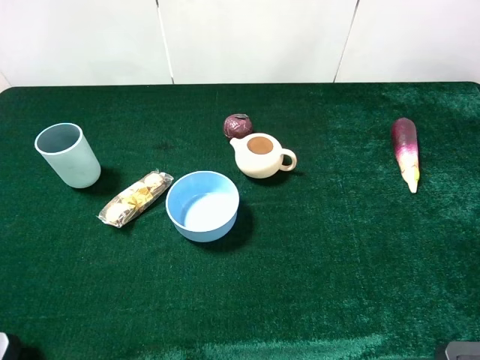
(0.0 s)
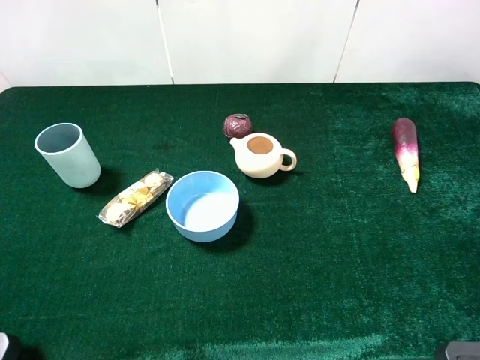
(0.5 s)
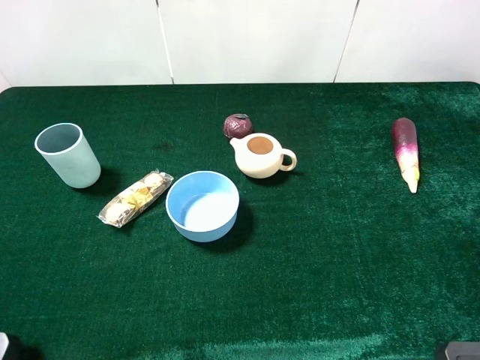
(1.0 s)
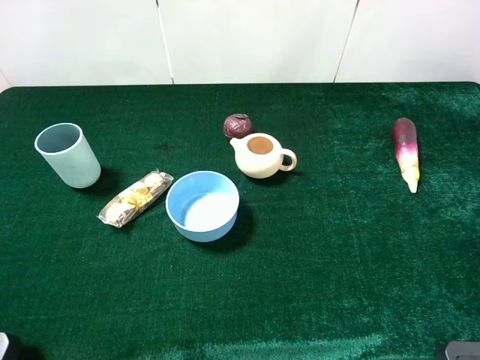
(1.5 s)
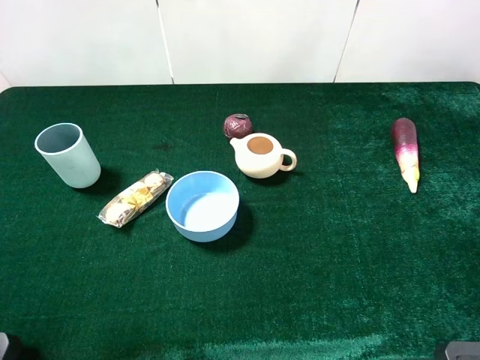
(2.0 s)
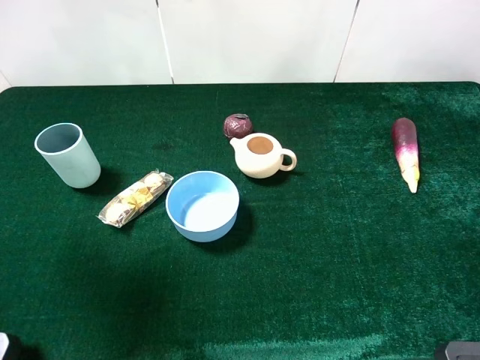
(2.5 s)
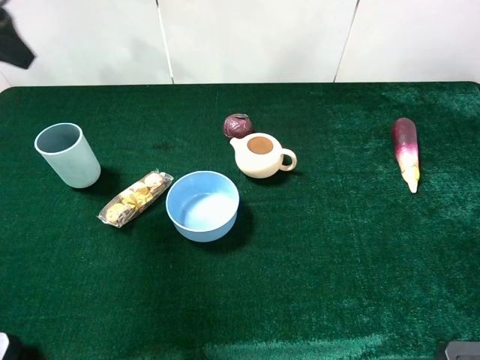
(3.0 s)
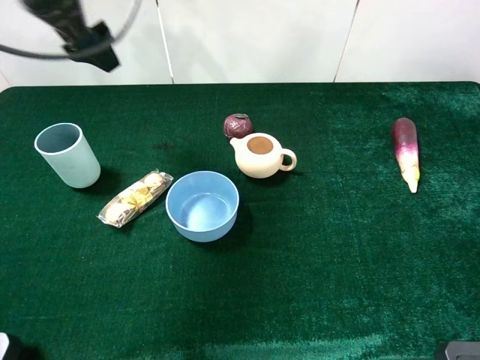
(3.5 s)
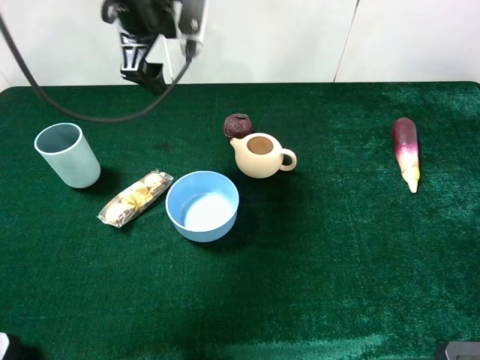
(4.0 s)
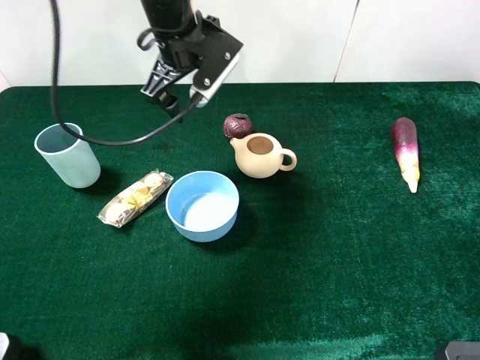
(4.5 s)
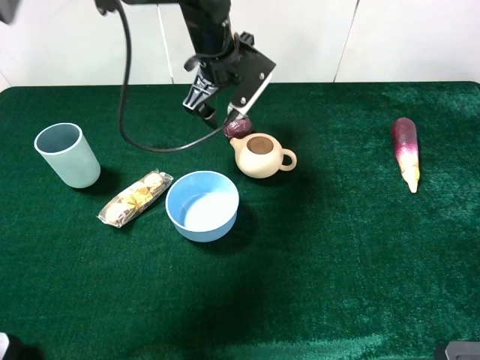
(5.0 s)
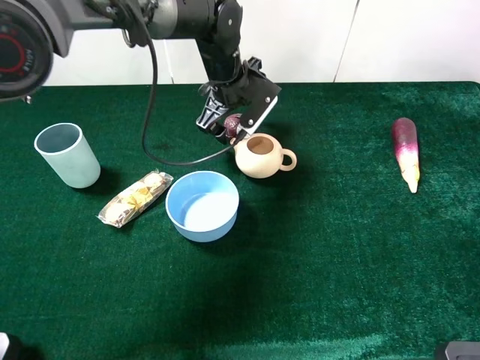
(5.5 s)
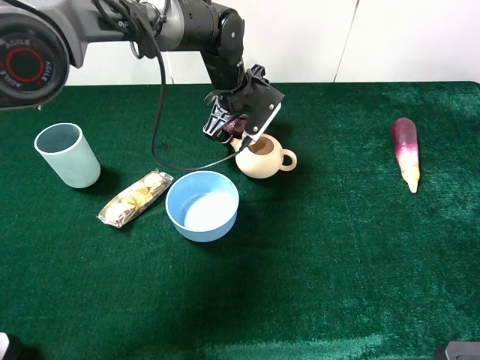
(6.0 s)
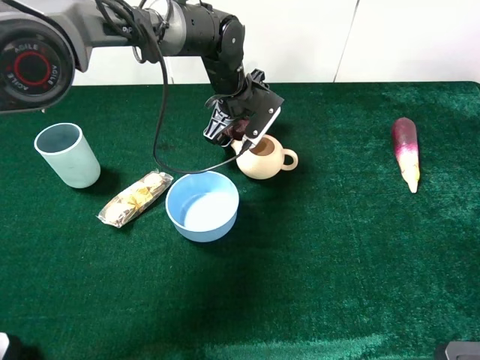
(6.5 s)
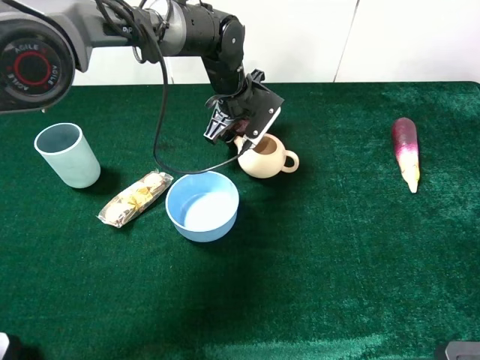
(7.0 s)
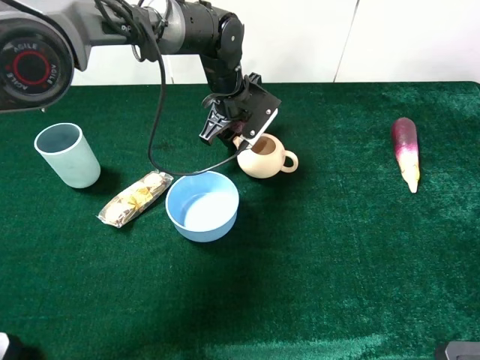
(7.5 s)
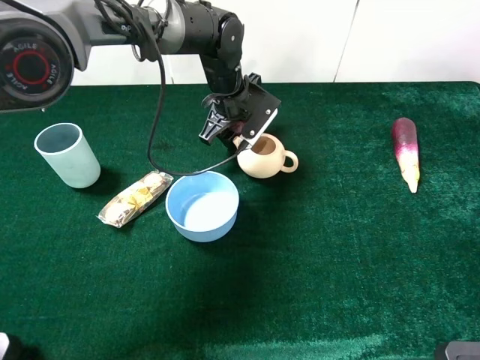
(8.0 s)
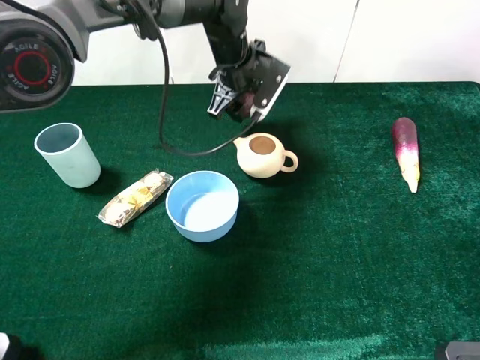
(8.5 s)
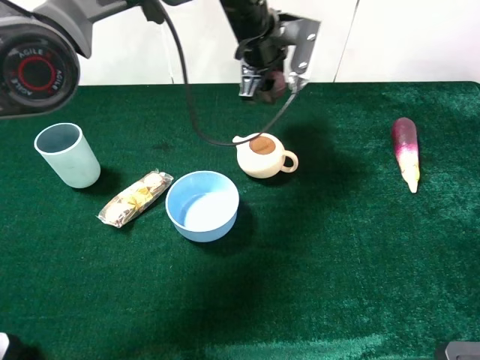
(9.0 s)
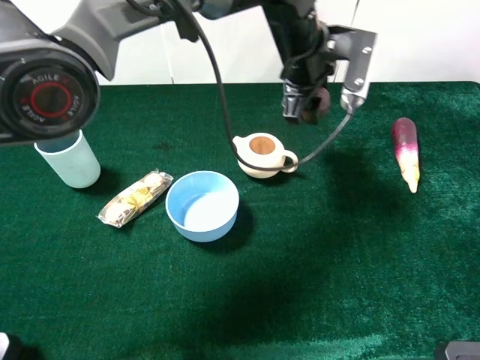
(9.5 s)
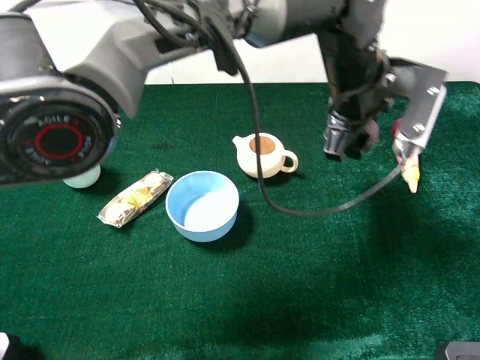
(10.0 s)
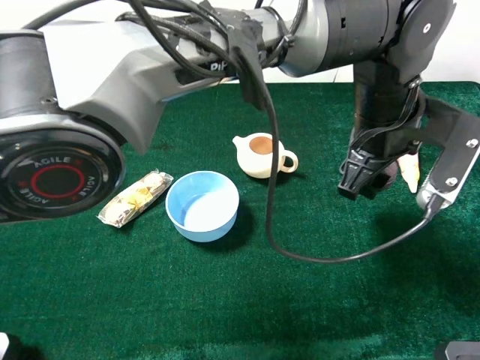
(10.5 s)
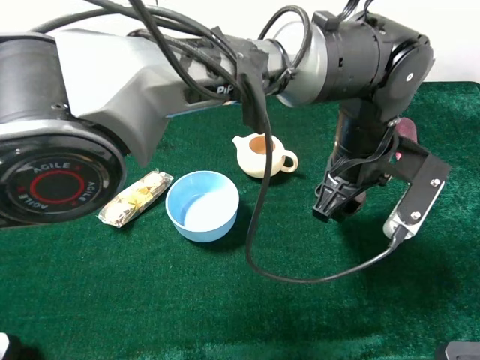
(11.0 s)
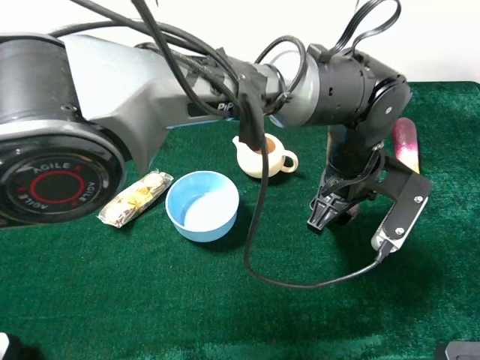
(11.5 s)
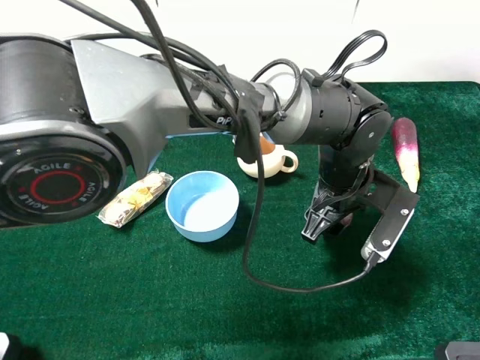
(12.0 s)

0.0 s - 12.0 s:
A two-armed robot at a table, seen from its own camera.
Task of the whole recording: the gripper move the object.
Step, 0.0 s - 7.5 s: Grasp the teapot with the left gripper.
2.0 s - 4.0 s: The left gripper travels forward and to the right by approximately 40 cm.
4.0 s - 6.0 s: The left gripper is displaced downward and to the right by roughly 20 cm.
6.0 s - 8.0 s: The left gripper closes.
8.0 s - 10.0 s: The left gripper goes roughly 20 cm to the right, backward and upward.
10.0 s - 12.0 s: The left gripper heads downward and backward, covering some 10 cm.

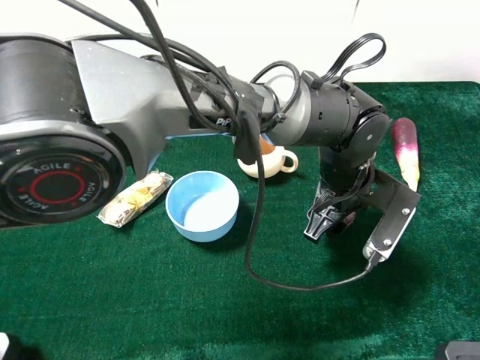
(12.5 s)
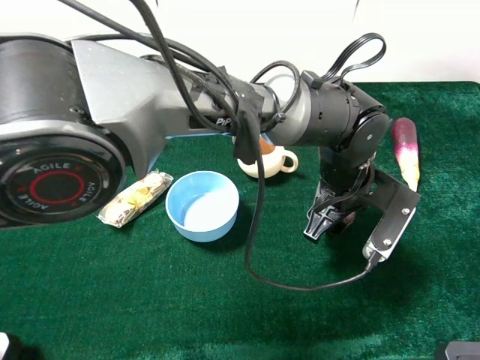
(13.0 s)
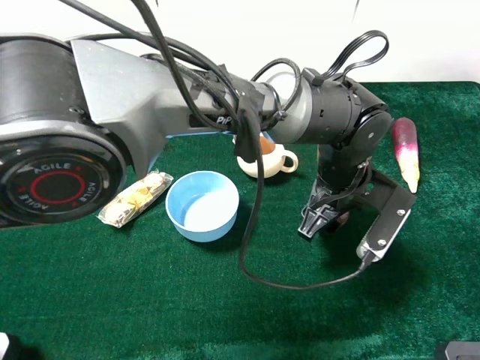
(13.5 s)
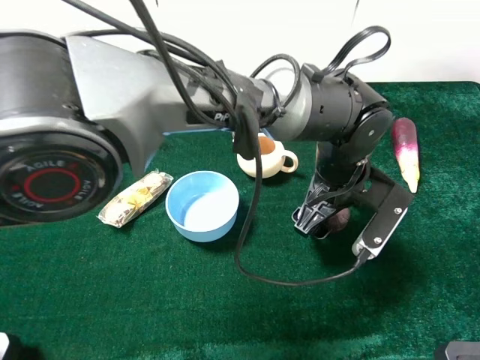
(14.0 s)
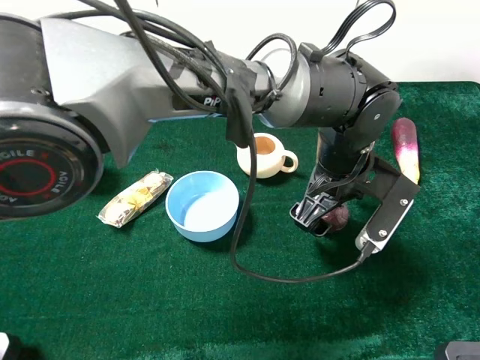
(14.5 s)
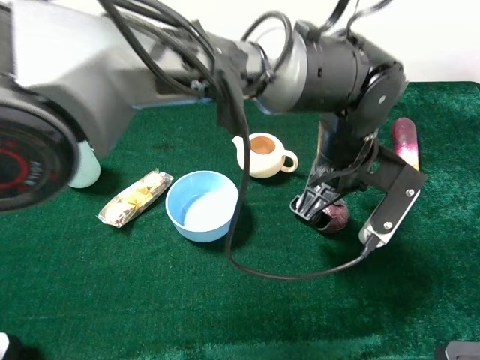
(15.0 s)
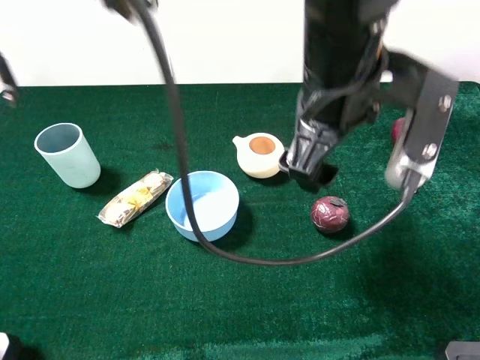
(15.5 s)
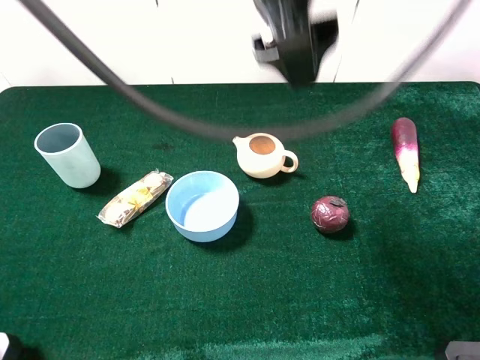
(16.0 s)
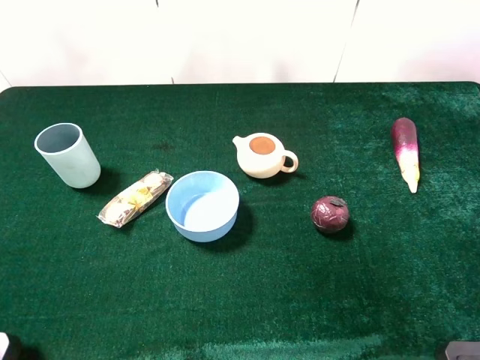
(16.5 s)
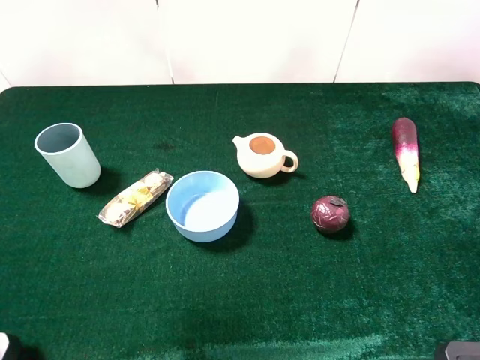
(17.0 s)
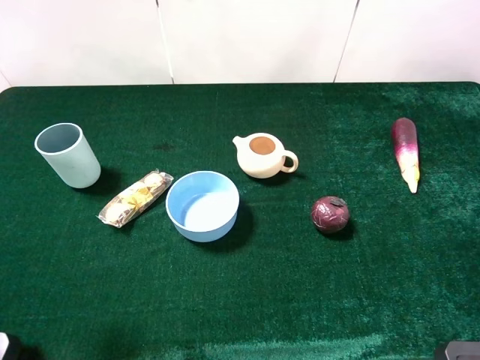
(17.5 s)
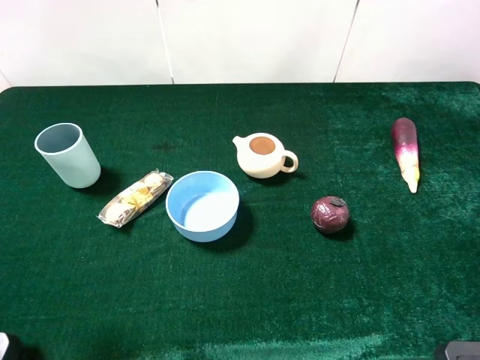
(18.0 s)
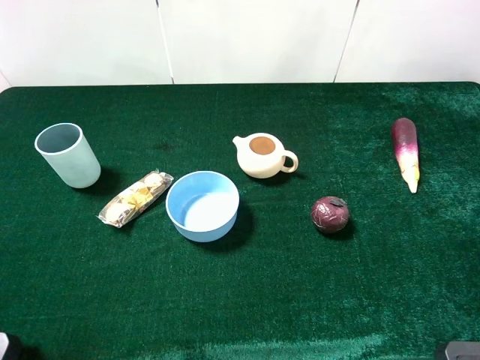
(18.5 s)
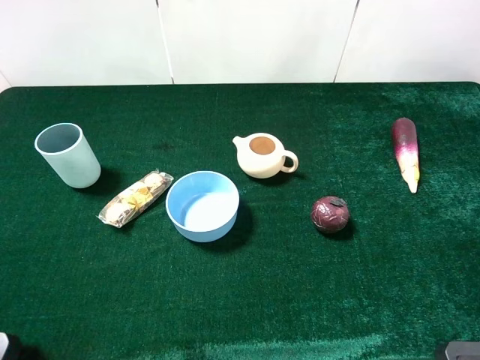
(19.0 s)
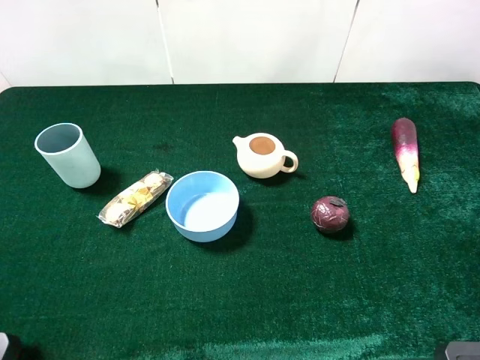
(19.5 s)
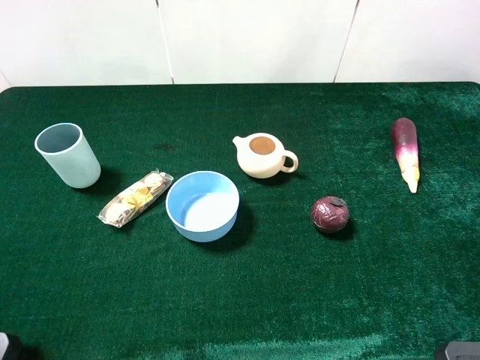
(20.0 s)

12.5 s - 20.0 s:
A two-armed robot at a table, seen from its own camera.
Task of the whole recording: the gripper move the object.
Step, 12.5 s - 15.0 s: Place the teapot on the table with the left gripper.
12.5 s - 14.5 s: The left gripper opens.
14.5 s - 16.5 s: The left gripper is displaced upward and to the left by some 40 cm.
16.5 s - 18.0 s: The left gripper heads downward, to the left and backward, covering approximately 30 cm.

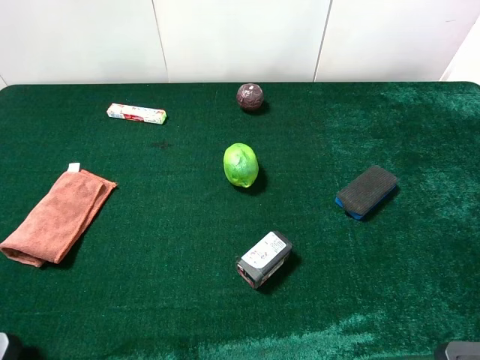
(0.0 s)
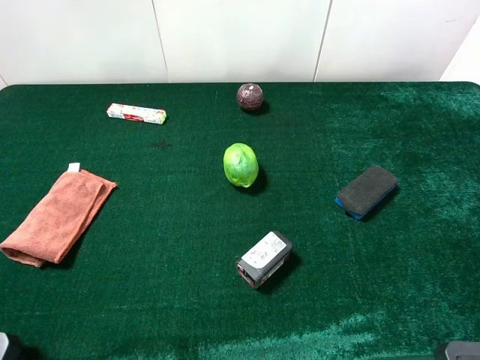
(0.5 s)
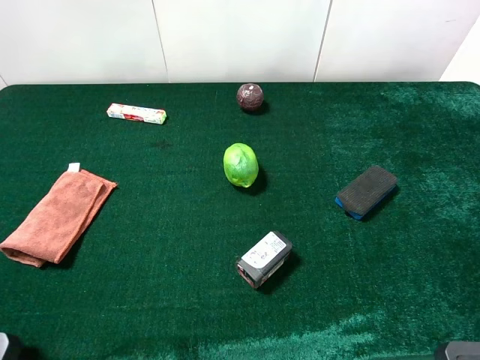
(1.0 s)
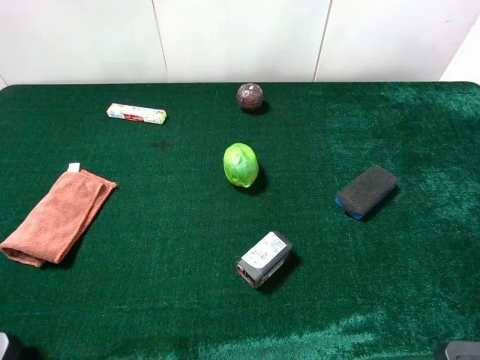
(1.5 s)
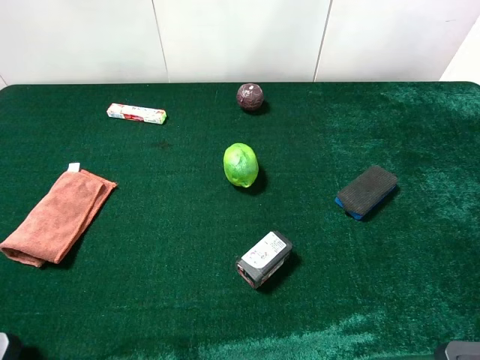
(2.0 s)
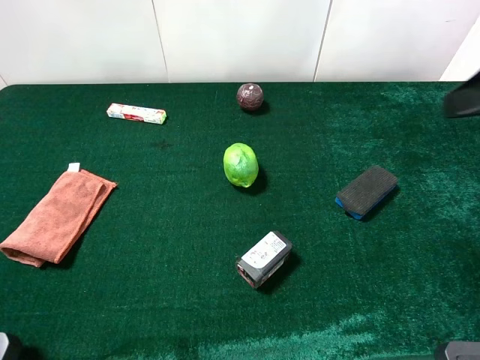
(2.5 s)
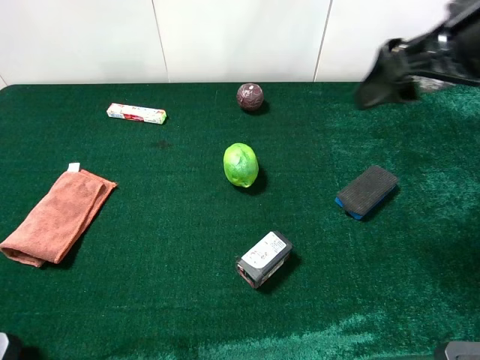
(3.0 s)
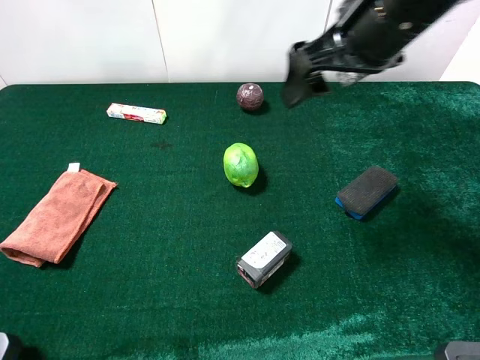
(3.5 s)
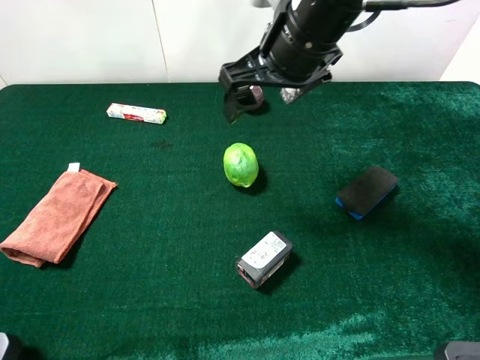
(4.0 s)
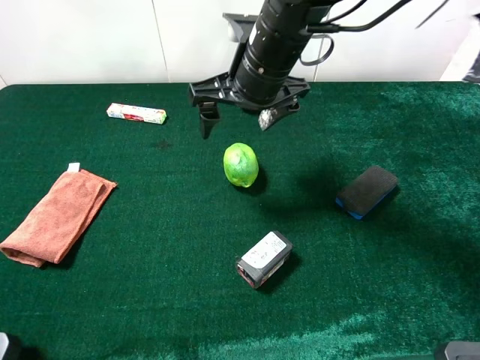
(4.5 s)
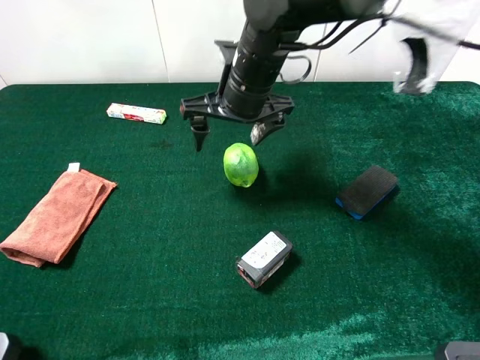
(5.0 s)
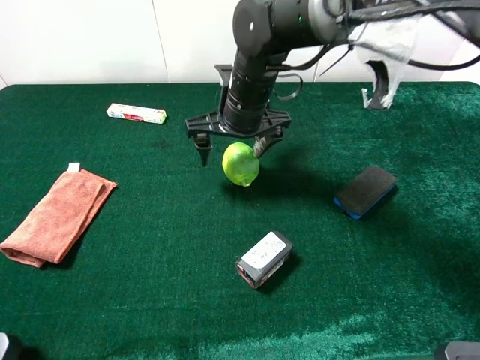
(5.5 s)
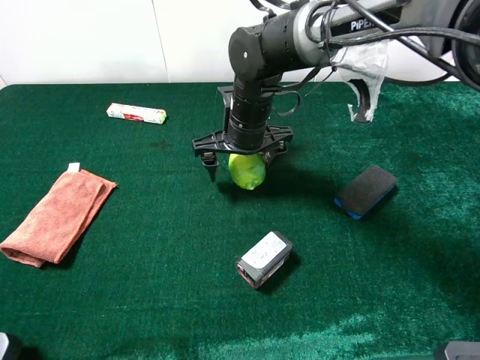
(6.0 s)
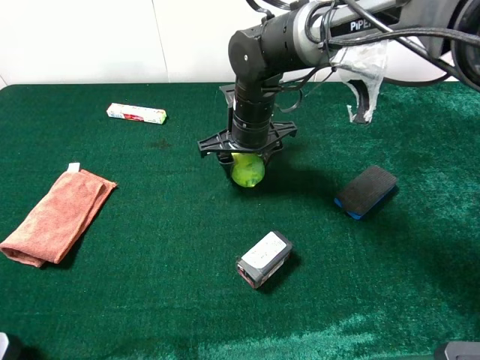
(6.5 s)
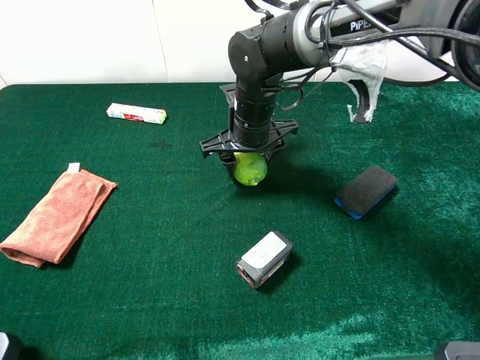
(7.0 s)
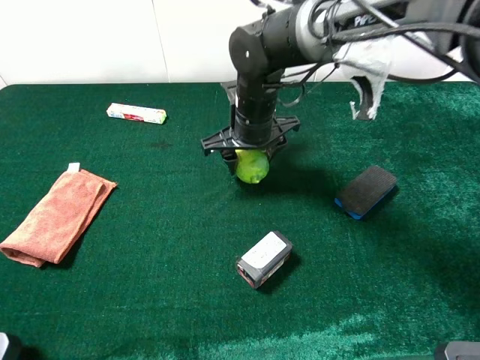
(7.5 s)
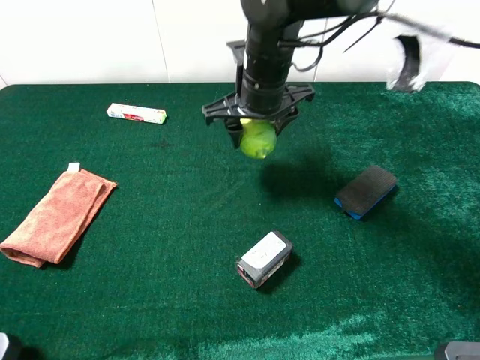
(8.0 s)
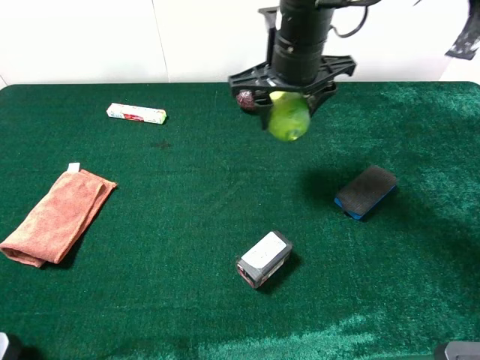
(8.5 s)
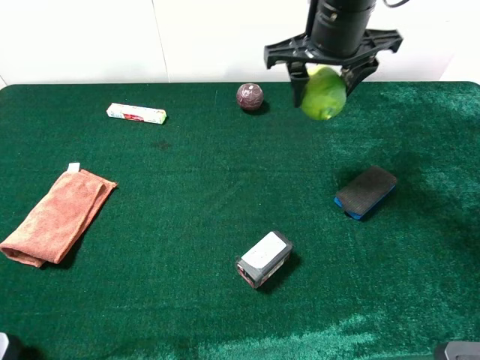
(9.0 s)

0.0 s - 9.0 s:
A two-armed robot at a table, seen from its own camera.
Task of the whole recording: the gripper move the object.
Step, 0.0 s - 7.0 s: Grasp the green lemon with the right gripper.
2.0 s - 4.5 s: The right gripper travels to the left, forward and downward by approximately 35 cm.
4.5 s - 7.0 s: The right gripper shifts approximately 10 cm downward, and closes up.
7.0 s - 9.0 s: The right gripper shifts approximately 20 cm upward and to the right.
